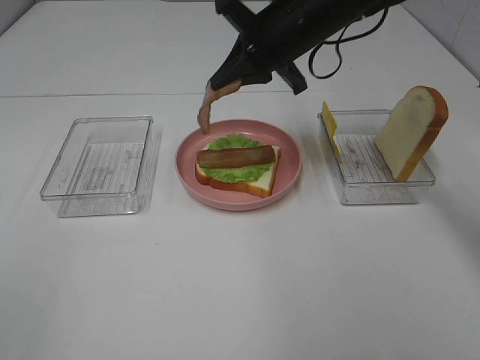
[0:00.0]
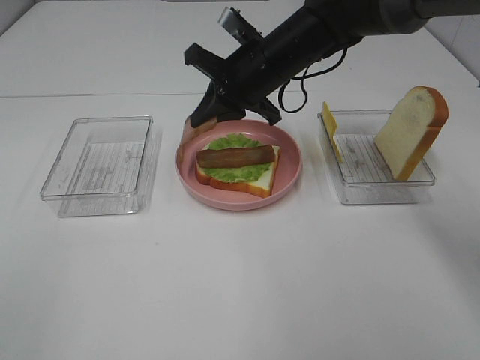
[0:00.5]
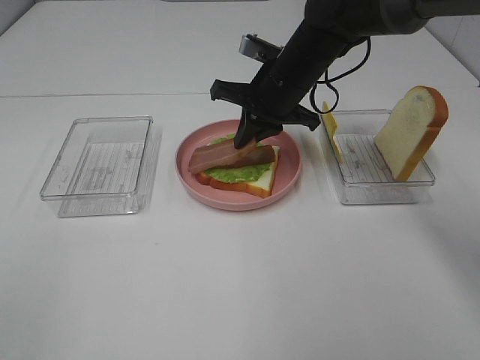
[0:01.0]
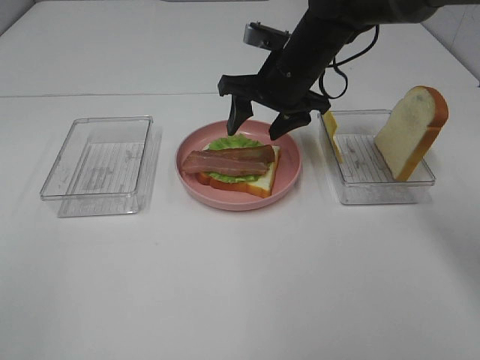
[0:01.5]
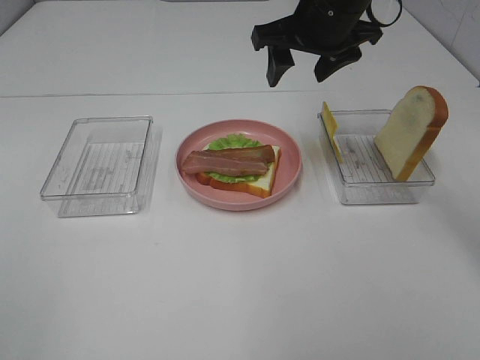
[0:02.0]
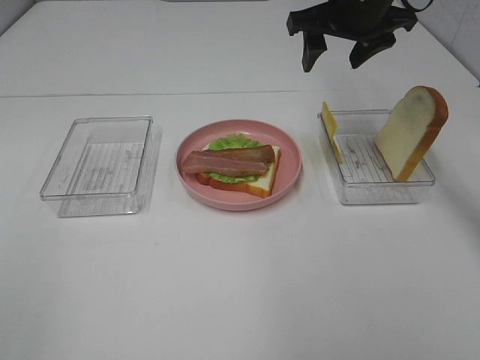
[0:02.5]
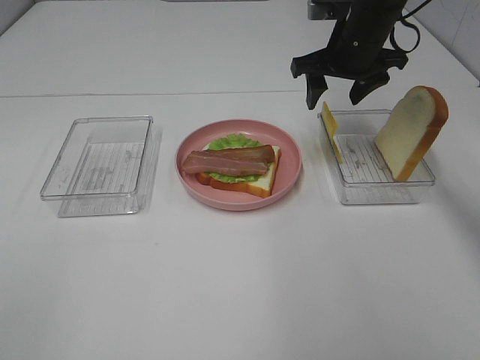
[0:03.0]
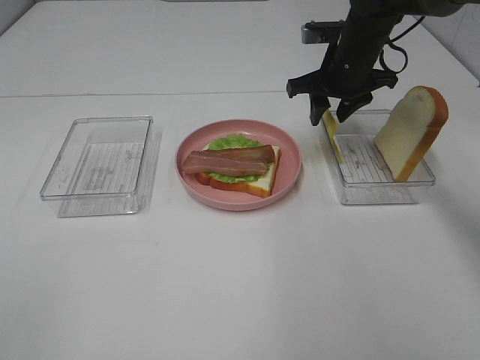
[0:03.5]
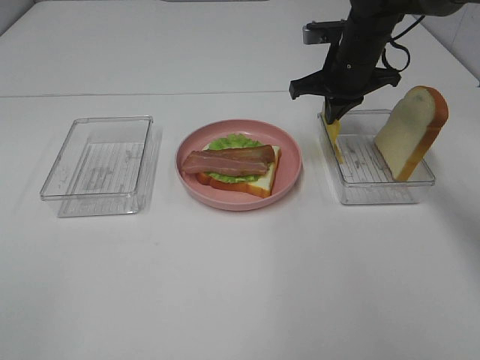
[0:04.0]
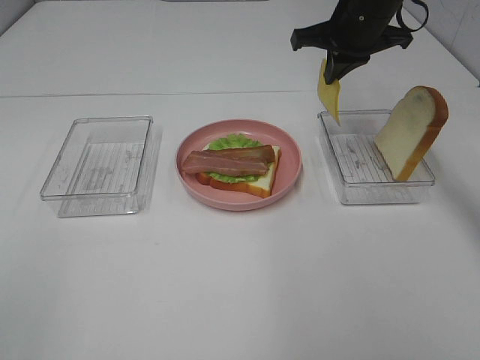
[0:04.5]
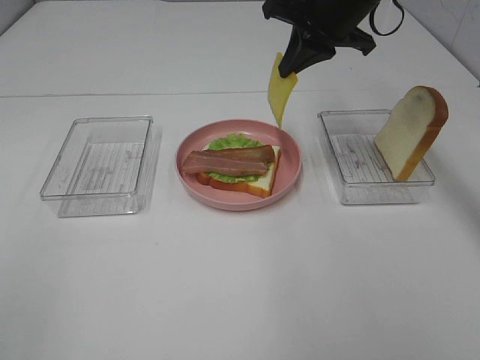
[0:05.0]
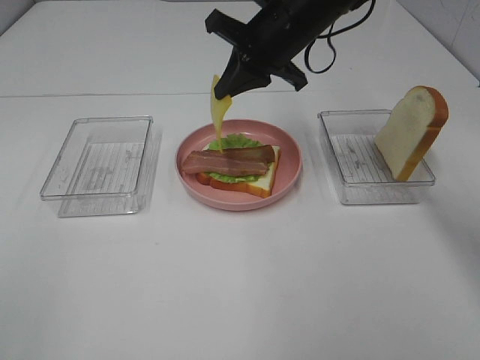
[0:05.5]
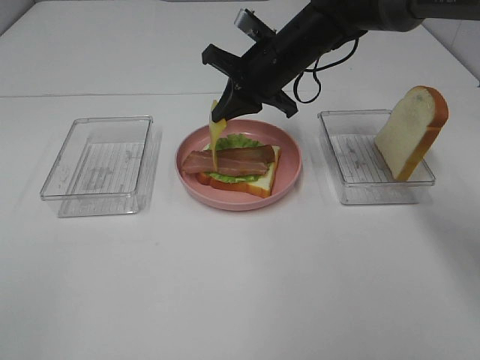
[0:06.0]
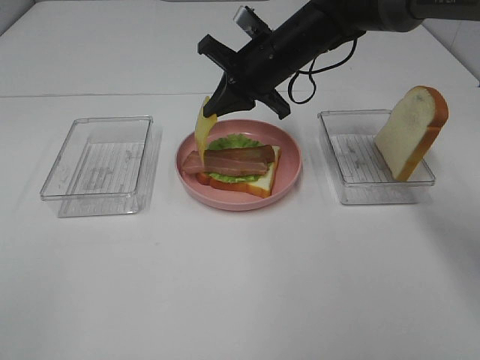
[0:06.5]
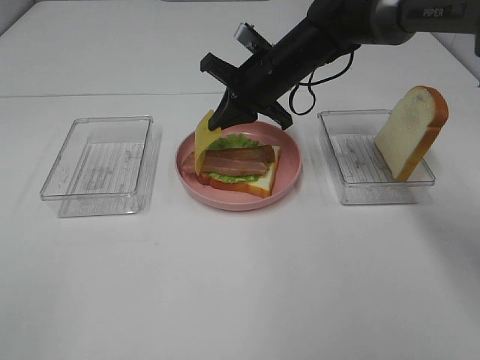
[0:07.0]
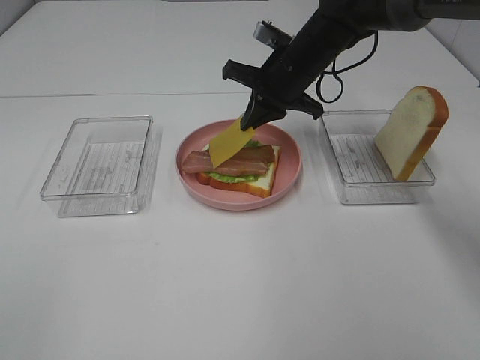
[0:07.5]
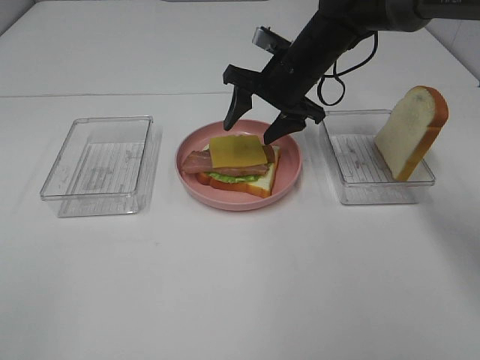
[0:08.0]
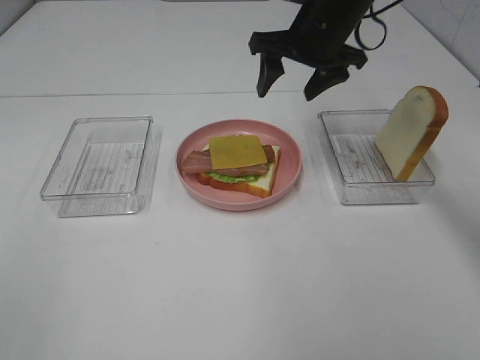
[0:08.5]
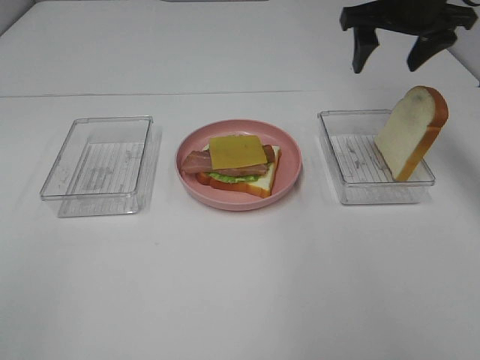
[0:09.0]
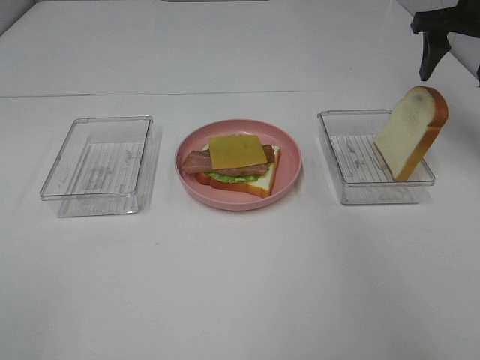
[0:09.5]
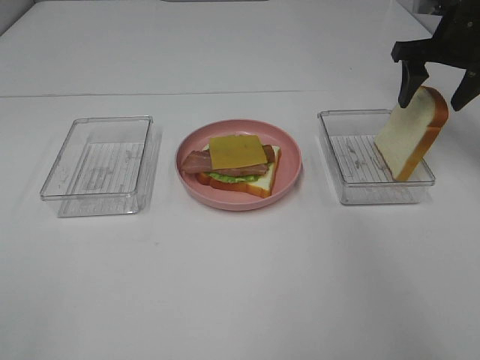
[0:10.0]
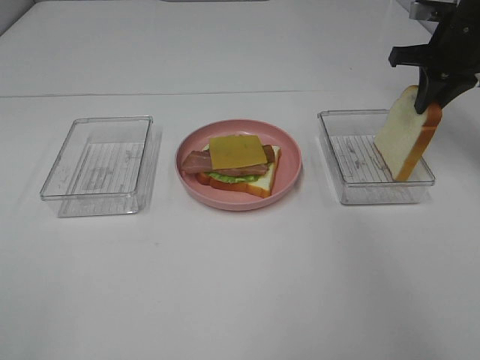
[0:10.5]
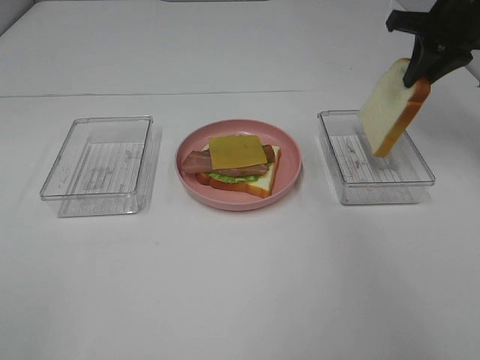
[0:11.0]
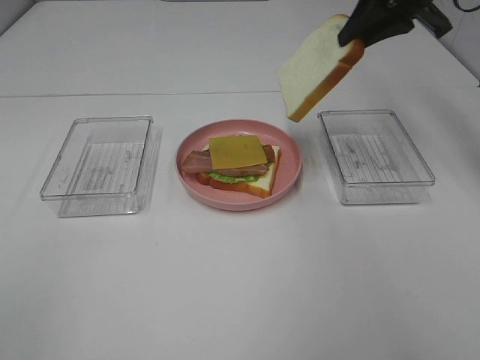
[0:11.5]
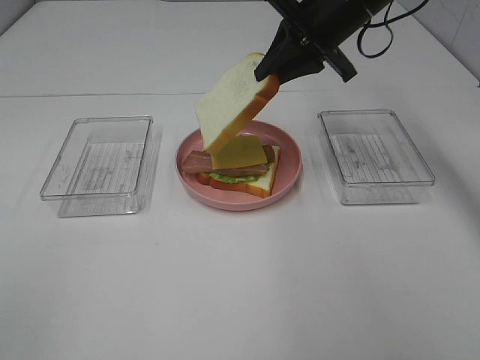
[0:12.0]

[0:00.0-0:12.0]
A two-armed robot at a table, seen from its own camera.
Task of the whole recording: Make sandwiches.
Step, 0:00.0 to 0:01.5: Right hand:place bacon on bacon.
Step, 0:02.0 to 0:03.5: Right hand:grab the cheese slice.
Step, 0:04.0 to 0:08.0: Right hand:place the cheese slice on top of the bacon.
Step, 0:08.5 to 0:10.5: Right hand:grab the bread slice.
0:00.0 to 0:02.0: The right gripper opens up.
0:02.0 to 0:04.0: The right gripper travels downward, forward and to the right by some 10 cm, and closes.
0:04.0 to 0:06.0: The right gripper shifts about 10 cm to the left.
0:06.0 to 0:08.0: The right gripper opens its fingers.
0:08.0 to 0:10.0: The right gripper shifts roughly 20 cm to the right.
0:10.0 to 0:12.0: The right gripper shifts approximately 15 cm to the left, and closes its fingers.

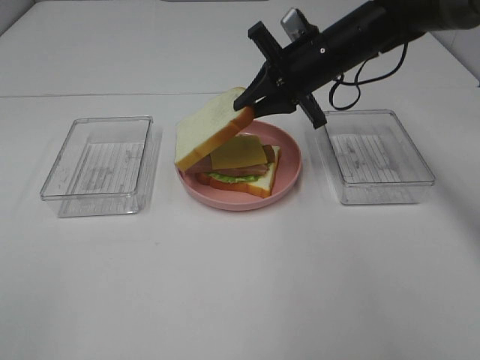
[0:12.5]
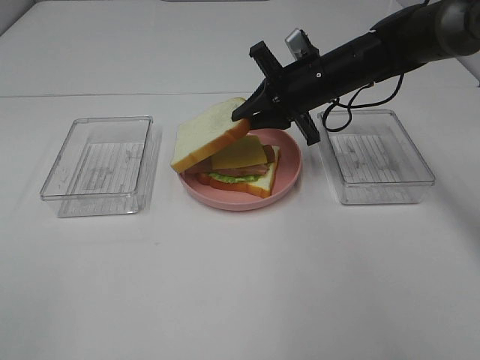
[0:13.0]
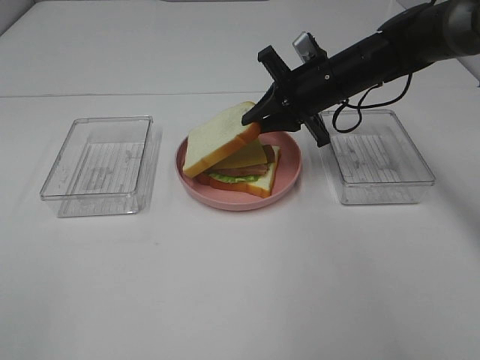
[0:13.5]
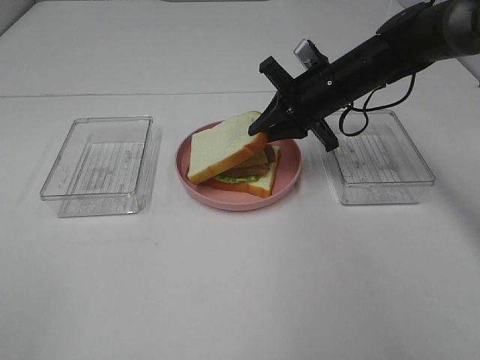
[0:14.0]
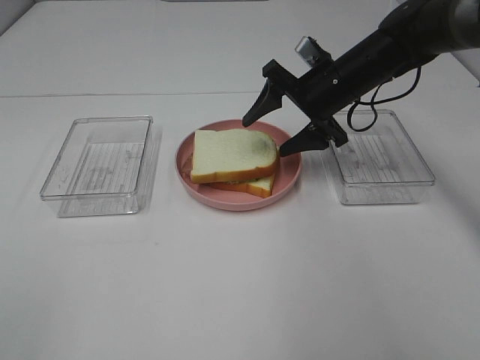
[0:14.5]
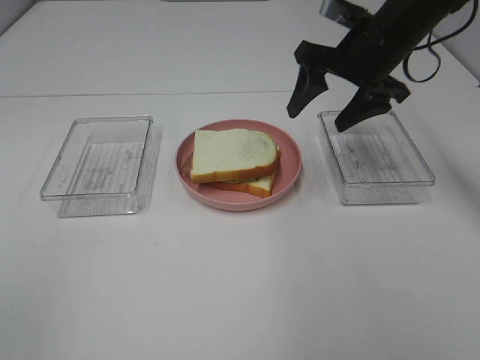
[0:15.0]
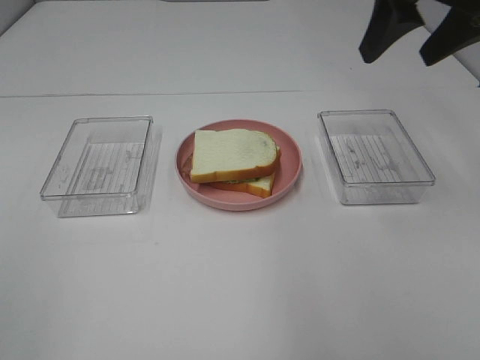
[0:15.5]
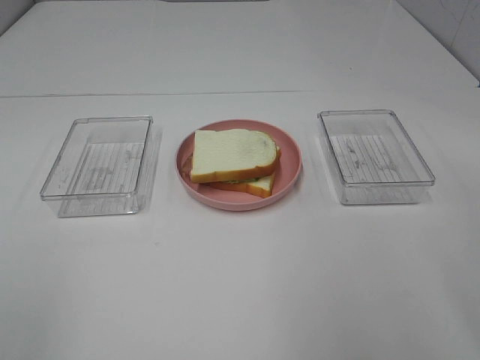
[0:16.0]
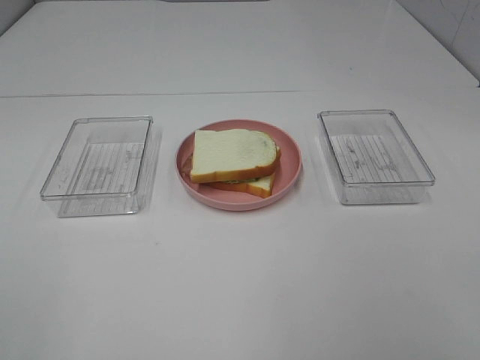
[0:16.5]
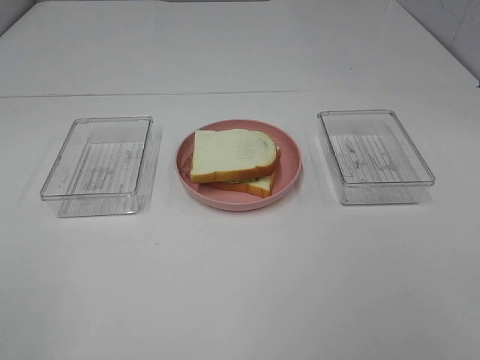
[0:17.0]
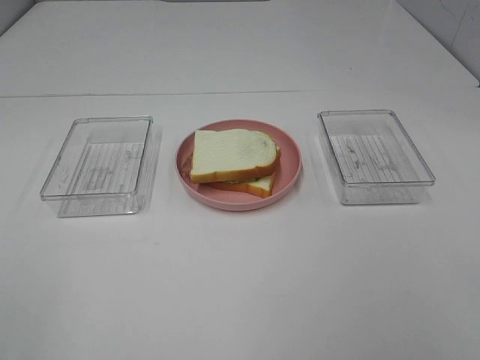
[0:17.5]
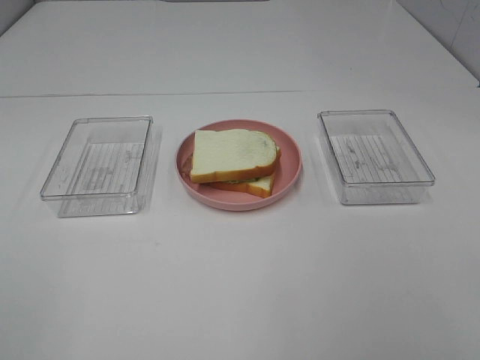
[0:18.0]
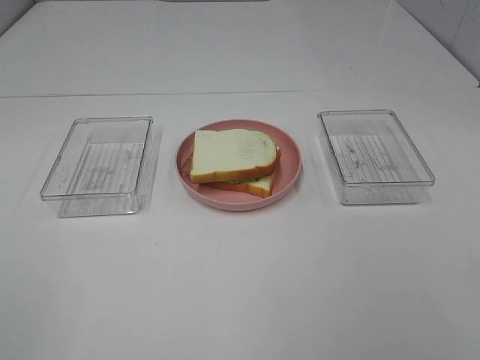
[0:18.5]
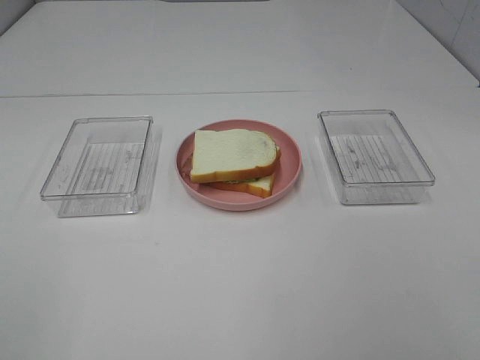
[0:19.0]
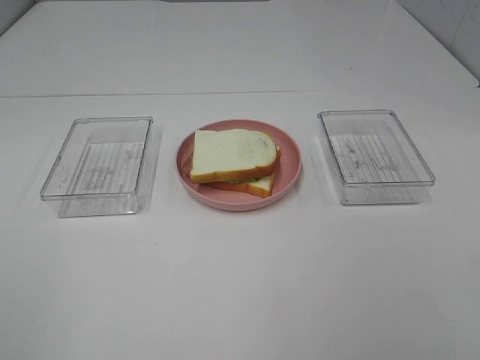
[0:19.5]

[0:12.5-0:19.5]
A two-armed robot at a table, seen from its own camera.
Task of the whole recording: Make sandwiches.
Step, 0:12.5 to 0:14.5: Right hand:place the bread slice on the cheese slice.
0:12.5 to 0:14.5: The right gripper opens its fingers.
0:14.5 to 0:16.0: The right gripper travels backward and upward by approximately 35 cm.
